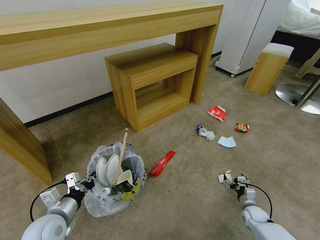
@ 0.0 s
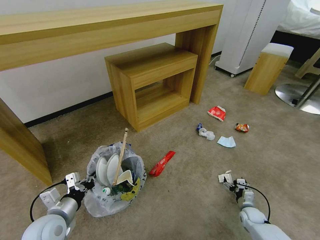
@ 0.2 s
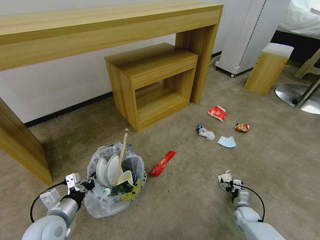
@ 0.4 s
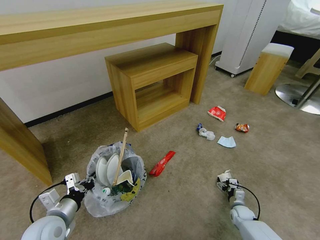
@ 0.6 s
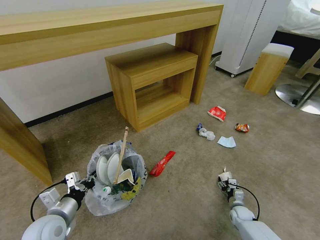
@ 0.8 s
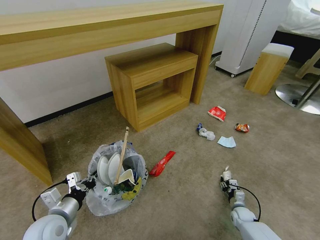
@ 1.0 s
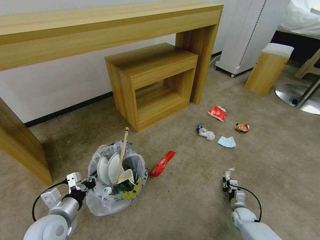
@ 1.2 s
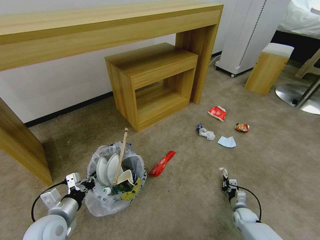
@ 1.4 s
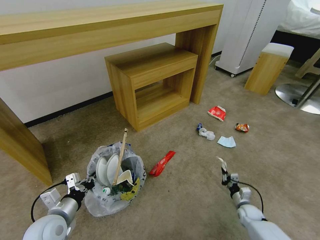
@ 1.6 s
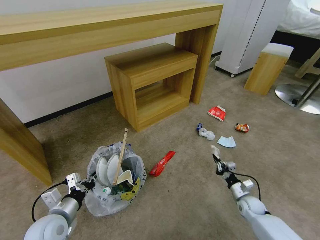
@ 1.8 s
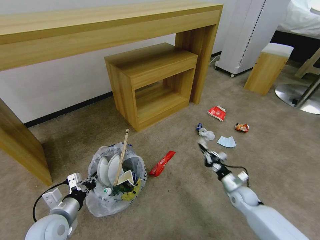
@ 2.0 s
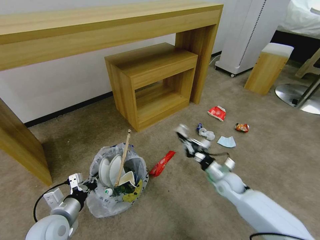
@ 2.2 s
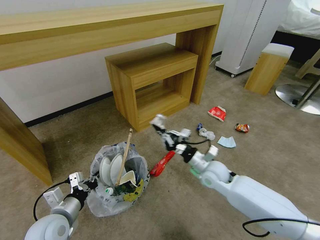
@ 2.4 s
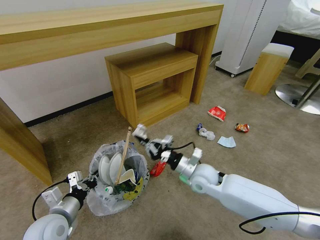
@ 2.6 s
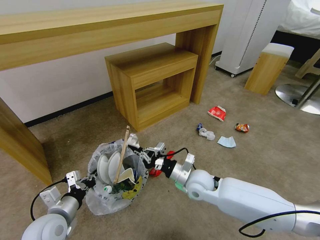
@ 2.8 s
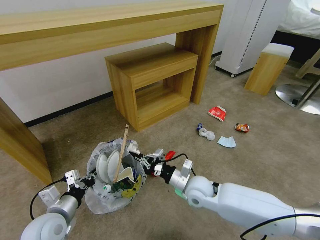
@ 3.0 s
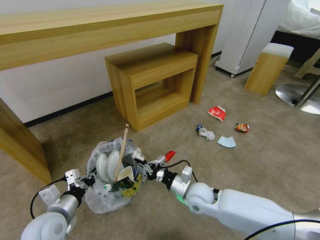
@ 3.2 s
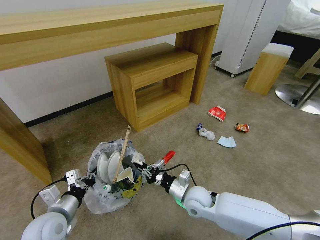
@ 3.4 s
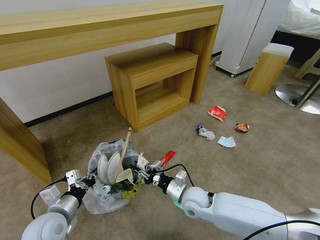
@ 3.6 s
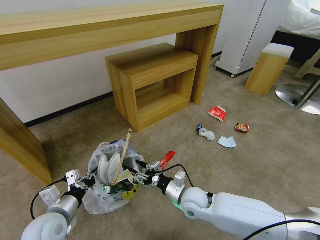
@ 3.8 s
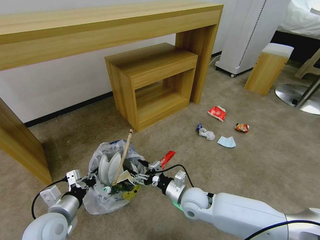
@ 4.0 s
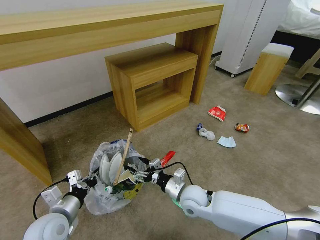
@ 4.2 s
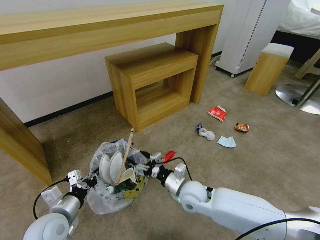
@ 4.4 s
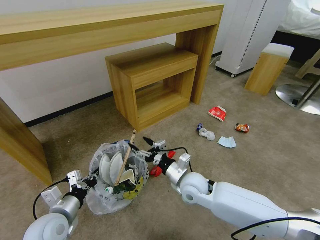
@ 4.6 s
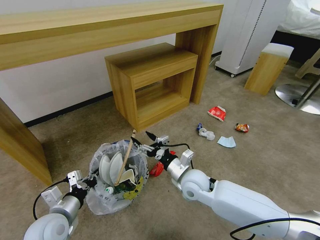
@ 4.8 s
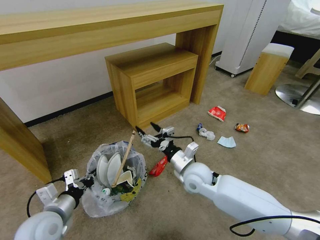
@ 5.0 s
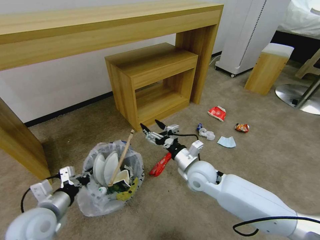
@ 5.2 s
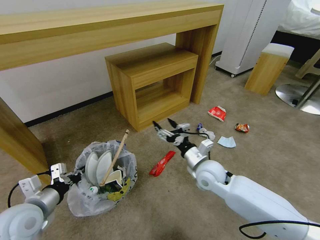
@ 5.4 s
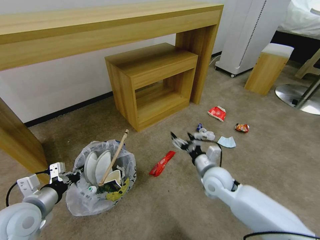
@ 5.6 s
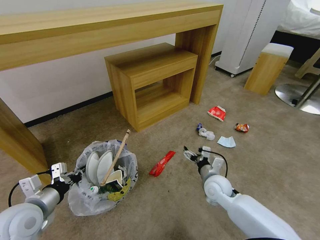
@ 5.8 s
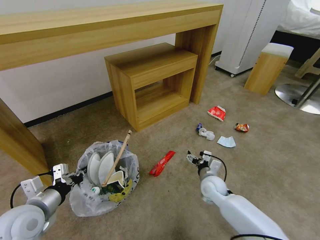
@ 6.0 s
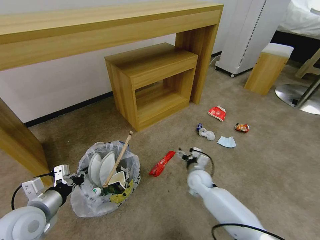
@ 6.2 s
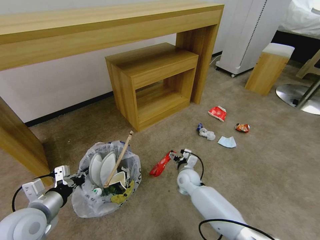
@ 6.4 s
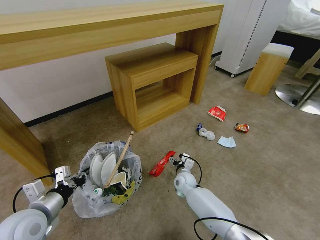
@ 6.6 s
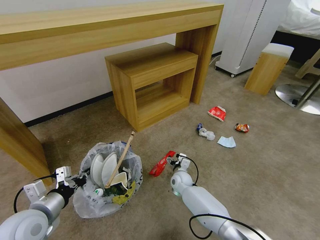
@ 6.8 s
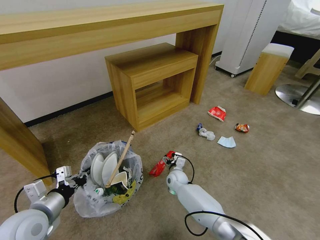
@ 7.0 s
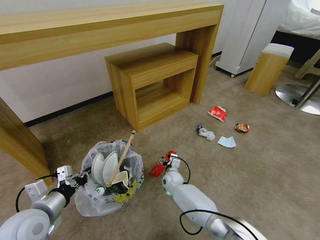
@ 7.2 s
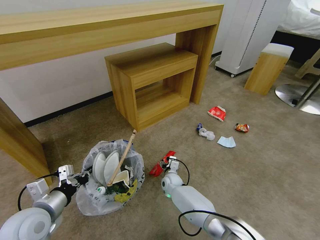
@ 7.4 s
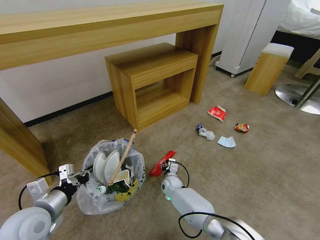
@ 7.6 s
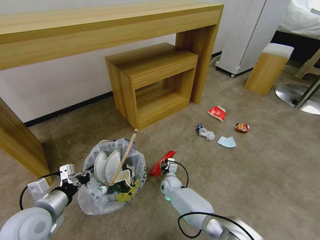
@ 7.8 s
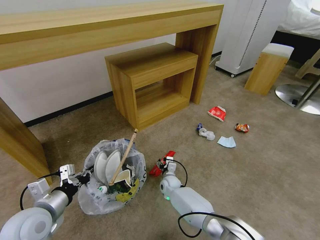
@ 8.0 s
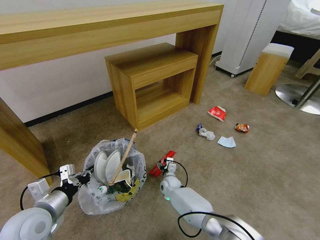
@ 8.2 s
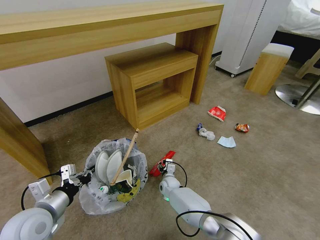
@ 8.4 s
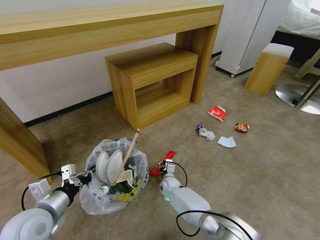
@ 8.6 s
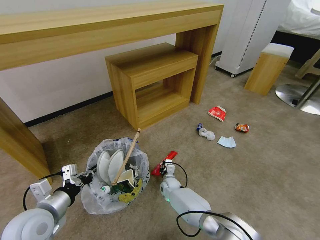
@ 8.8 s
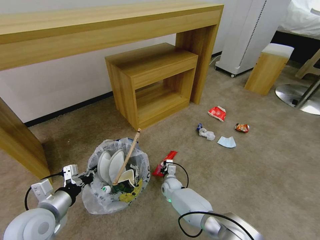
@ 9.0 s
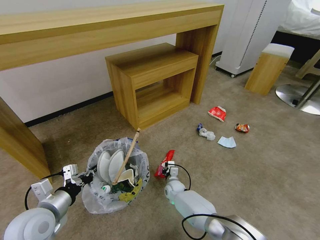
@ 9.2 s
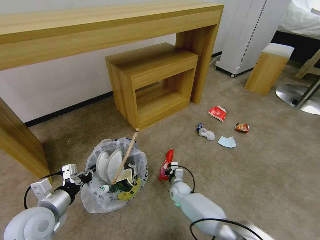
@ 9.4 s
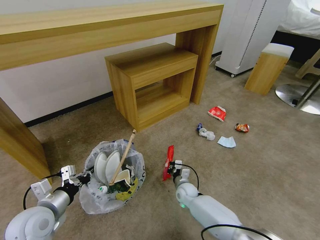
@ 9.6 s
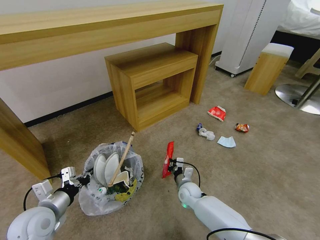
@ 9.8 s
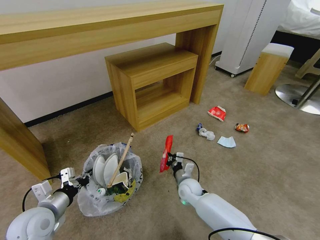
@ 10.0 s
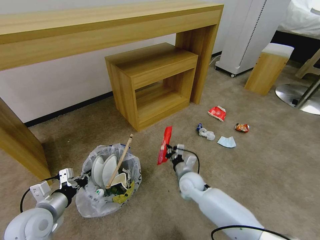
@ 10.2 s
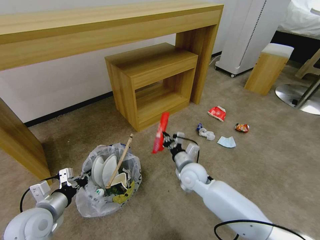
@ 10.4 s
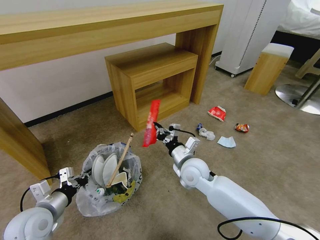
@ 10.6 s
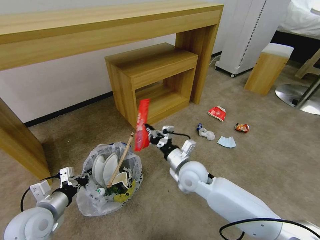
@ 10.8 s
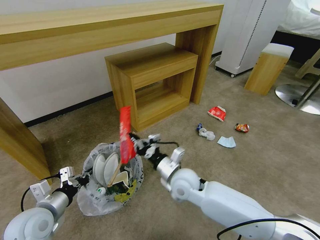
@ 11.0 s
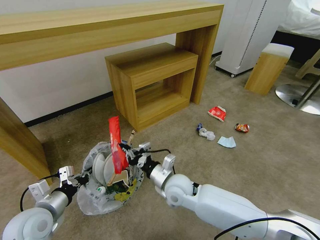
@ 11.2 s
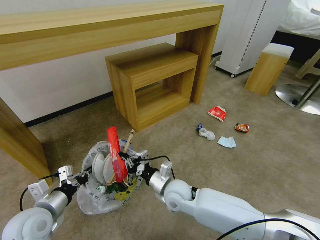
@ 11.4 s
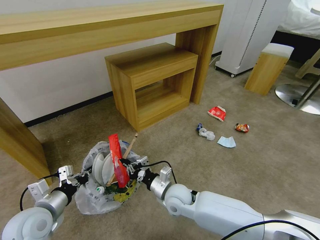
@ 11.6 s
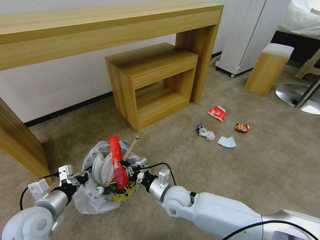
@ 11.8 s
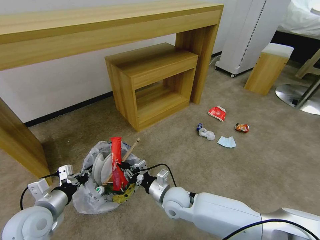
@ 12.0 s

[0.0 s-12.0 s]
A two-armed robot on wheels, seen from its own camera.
Task of the whole recording: Pick up the trash bin and place the garbage on the floor into it.
0.0 to 1.6 s: The right gripper closes up.
1.6 to 3.0 s: The right gripper moves to the left and upward, roughly 35 cm.
3.0 to 4.4 s: The right gripper opens.
4.4 to 6.0 s: The right gripper moves to the right and downward, some 10 cm. Meanwhile the left gripper moves upward, roughly 5 cm.
6.0 to 7.6 s: The right gripper travels to the left, downward and forward by roughly 20 cm, and closes its fingers.
7.6 to 9.0 s: The right gripper closes its fingers.
9.0 to 10.4 s: The right gripper goes about 20 cm upward.
10.4 to 12.0 s: The right gripper shifts some 10 cm backward and to the left, and moves about 5 cm upward and comes back.

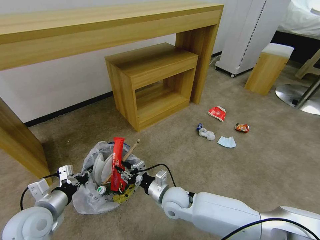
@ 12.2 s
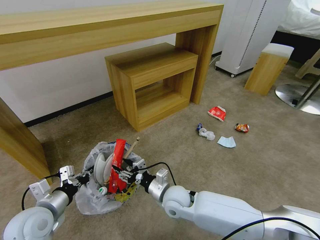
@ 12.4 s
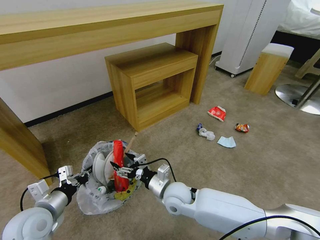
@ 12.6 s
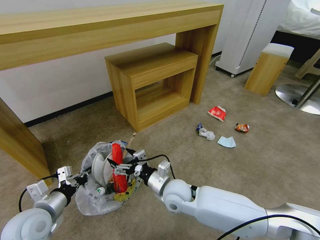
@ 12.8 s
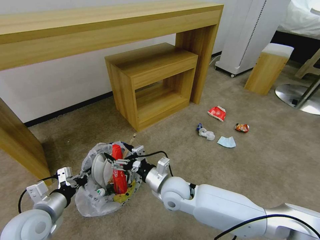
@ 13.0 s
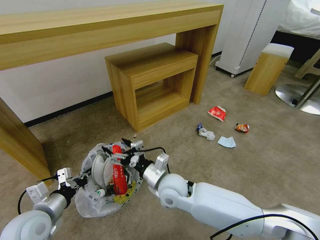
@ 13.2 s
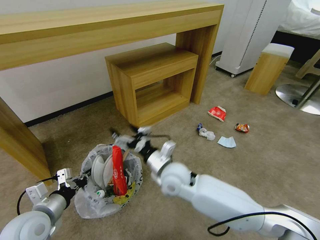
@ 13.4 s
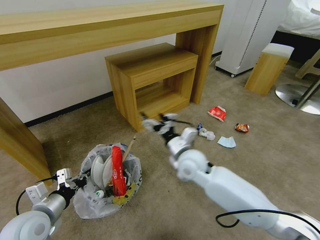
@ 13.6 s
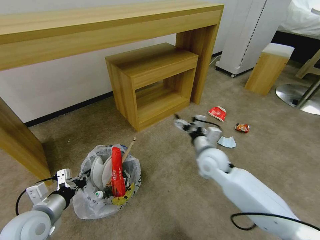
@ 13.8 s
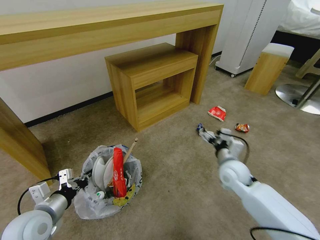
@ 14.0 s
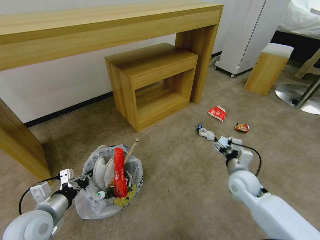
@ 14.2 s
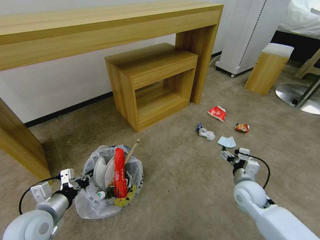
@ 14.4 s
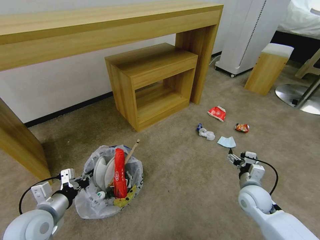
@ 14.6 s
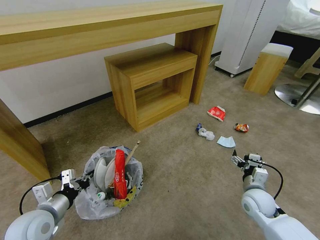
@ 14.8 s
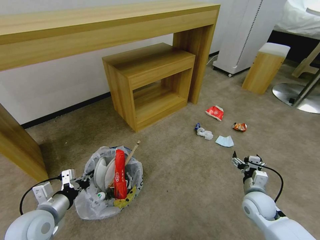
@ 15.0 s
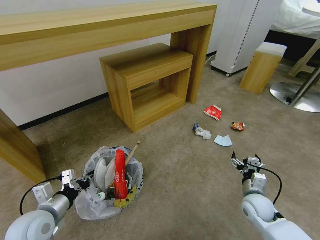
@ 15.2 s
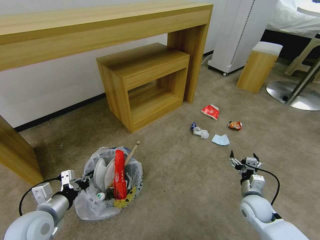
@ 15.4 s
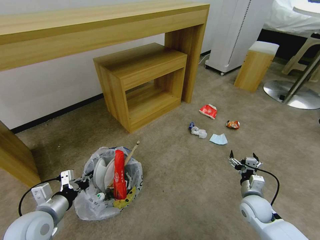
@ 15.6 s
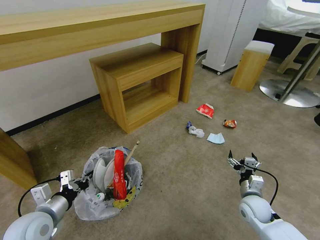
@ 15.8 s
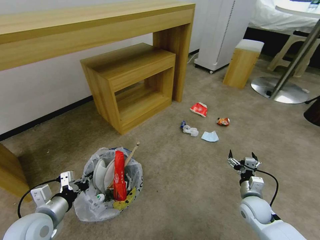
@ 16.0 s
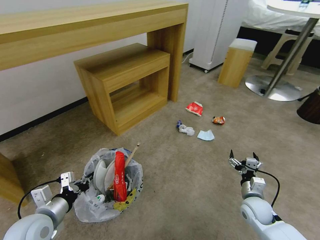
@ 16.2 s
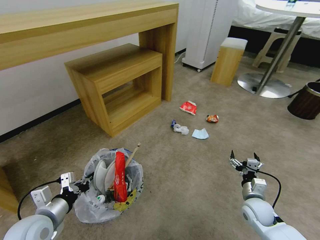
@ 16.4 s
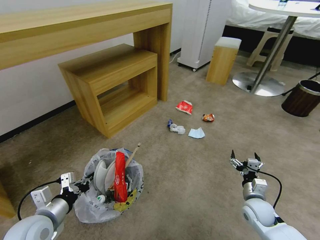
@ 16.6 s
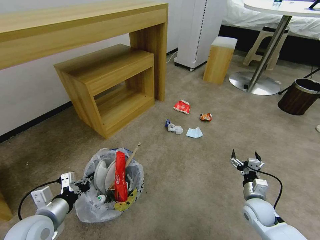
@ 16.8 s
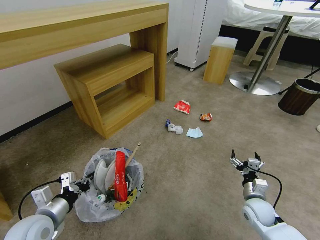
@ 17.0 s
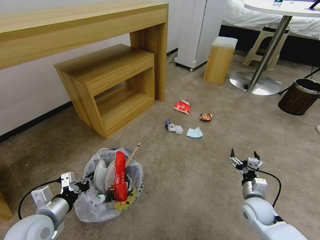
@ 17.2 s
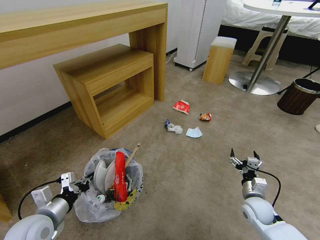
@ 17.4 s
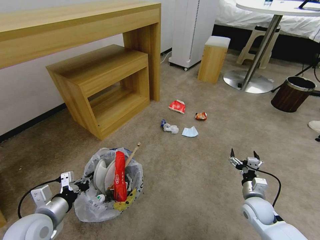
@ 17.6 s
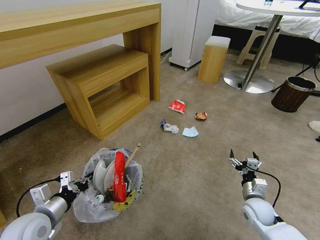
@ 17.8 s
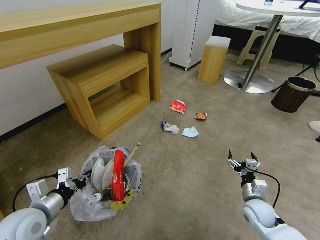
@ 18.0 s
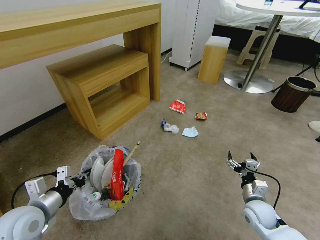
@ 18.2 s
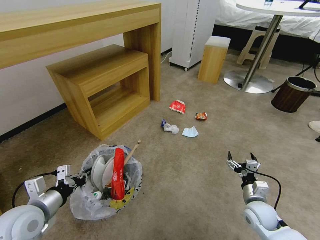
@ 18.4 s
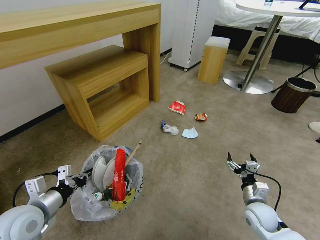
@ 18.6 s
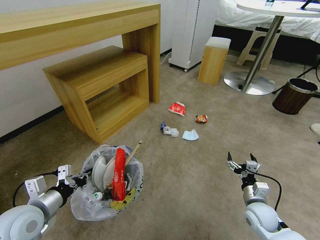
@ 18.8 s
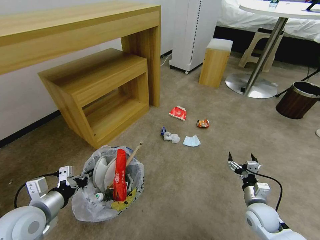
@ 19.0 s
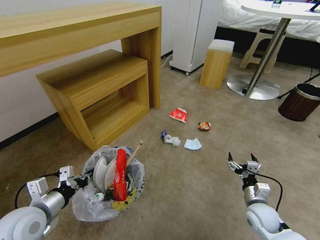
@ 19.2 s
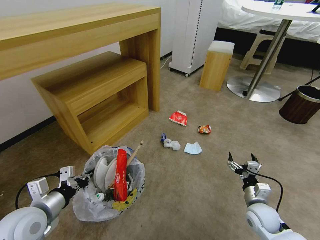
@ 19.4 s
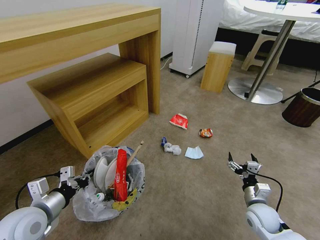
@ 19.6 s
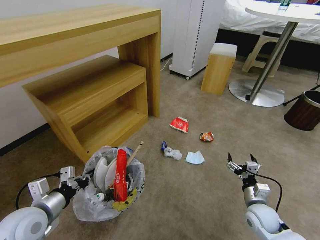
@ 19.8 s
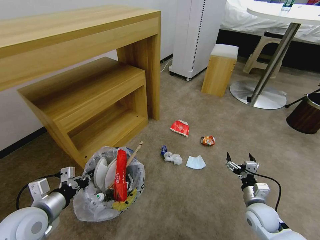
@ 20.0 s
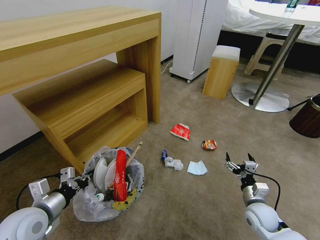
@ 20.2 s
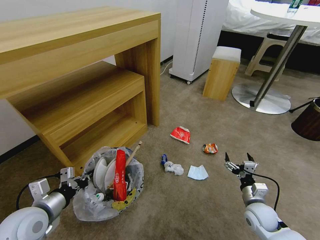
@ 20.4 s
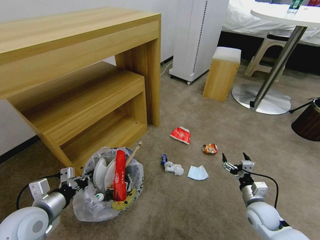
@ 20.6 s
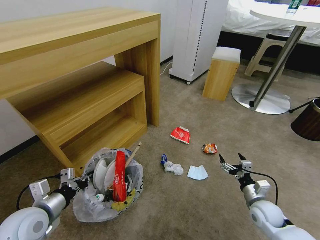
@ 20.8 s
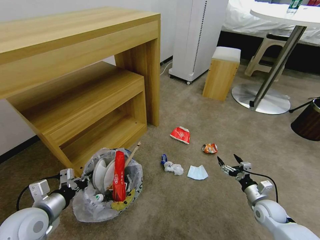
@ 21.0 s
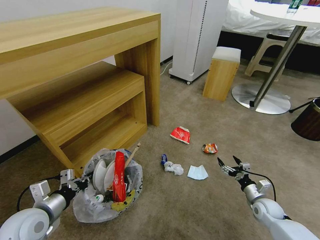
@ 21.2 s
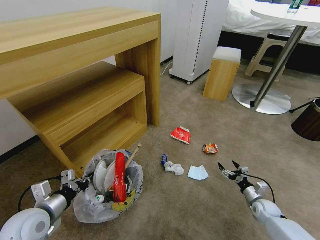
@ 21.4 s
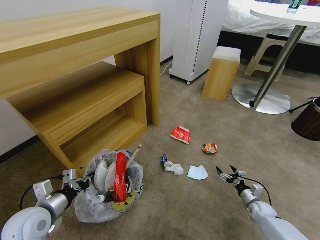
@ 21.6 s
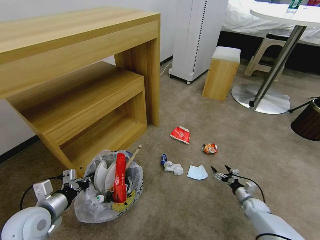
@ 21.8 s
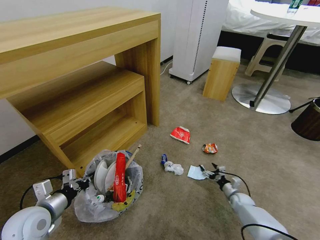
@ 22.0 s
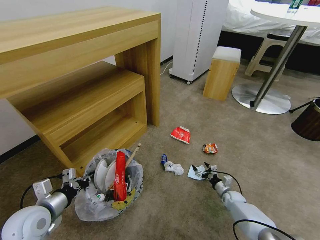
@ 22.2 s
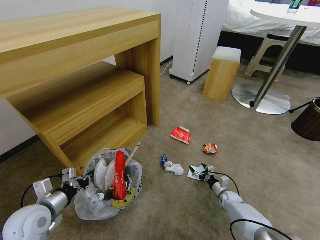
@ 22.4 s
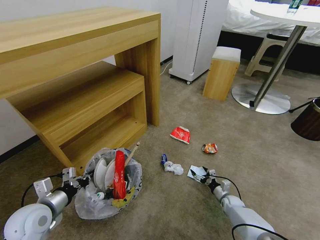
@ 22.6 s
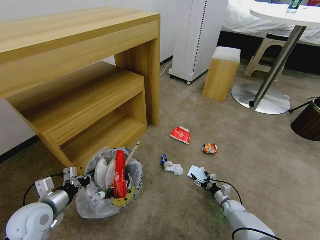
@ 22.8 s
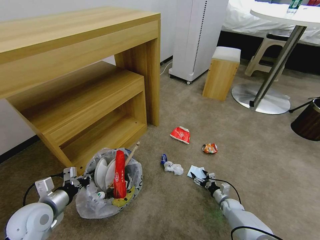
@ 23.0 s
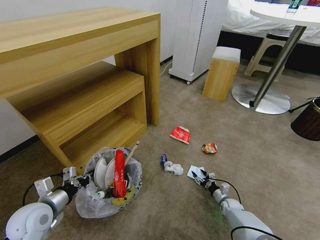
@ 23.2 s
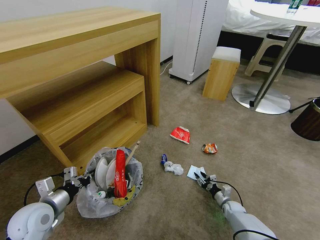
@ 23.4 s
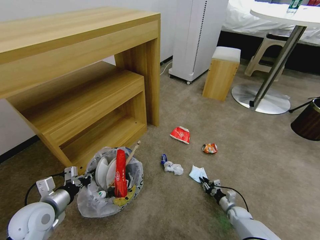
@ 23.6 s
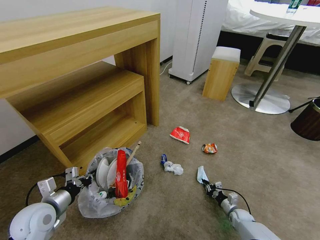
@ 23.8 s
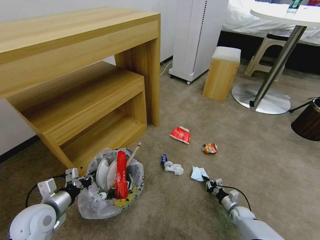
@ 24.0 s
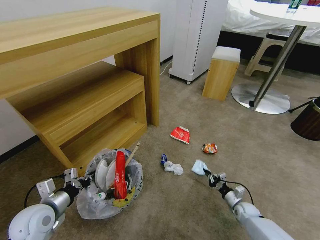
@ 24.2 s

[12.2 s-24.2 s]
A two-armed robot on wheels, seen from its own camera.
Task of the whole recording: Pick up the trash bin and place the garbage on the floor into it.
12.2 to 13.8 s: The right gripper travels to the right, upward and forward by about 20 cm, and opens.
13.8 to 15.2 s: The right gripper moves to the right, downward and backward, roughly 25 cm.
19.8 to 21.2 s: The right gripper shifts roughly 10 cm to the right and downward.
21.2 to 22.6 s: The right gripper goes roughly 15 cm downward, to the left and forward.
22.6 to 24.2 s: The right gripper moves roughly 5 cm, and closes.
